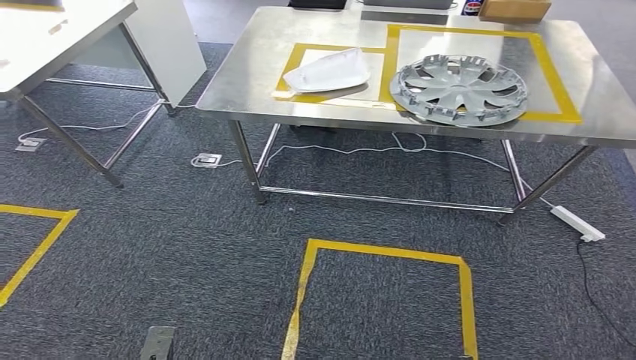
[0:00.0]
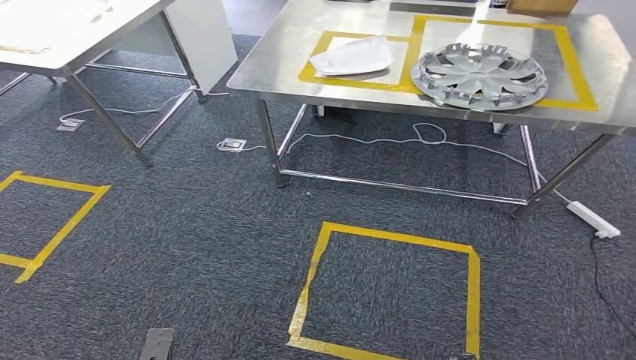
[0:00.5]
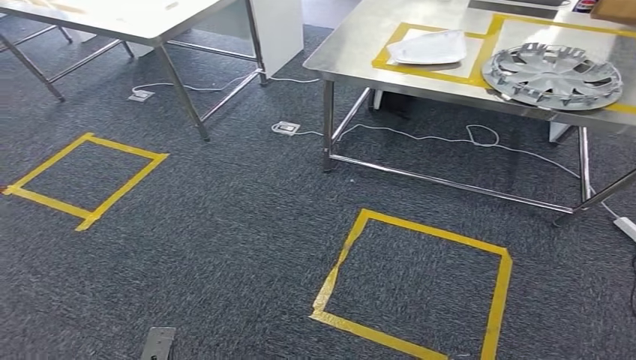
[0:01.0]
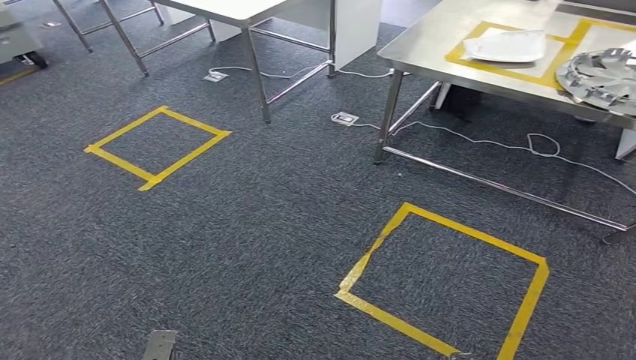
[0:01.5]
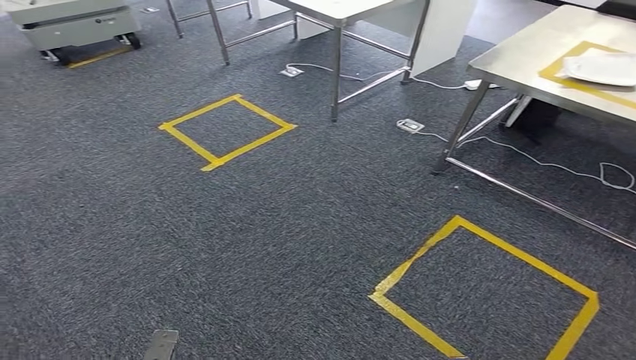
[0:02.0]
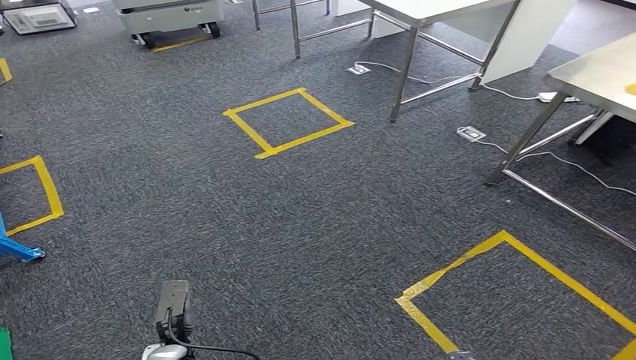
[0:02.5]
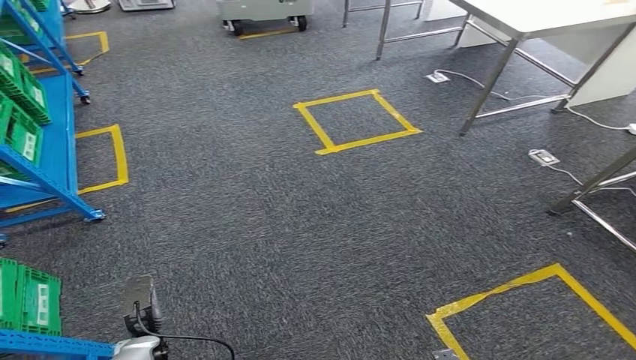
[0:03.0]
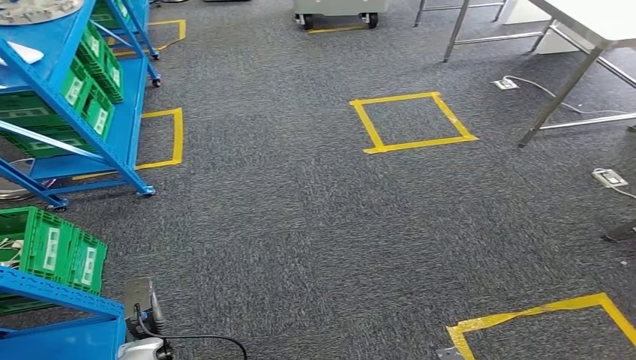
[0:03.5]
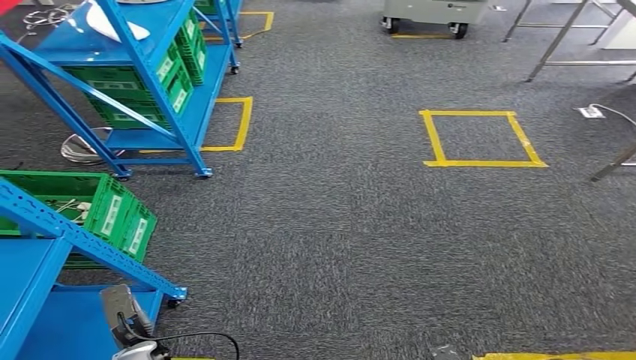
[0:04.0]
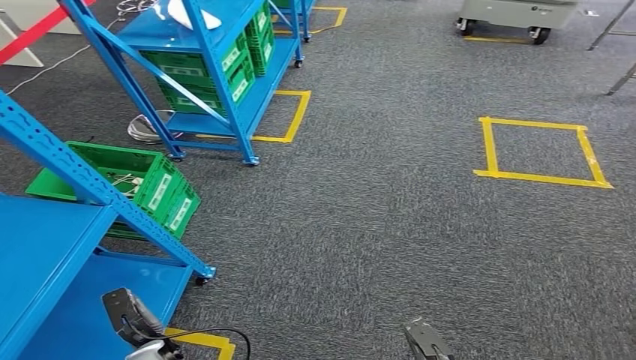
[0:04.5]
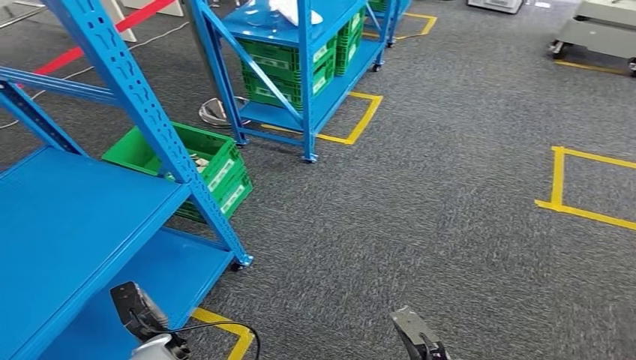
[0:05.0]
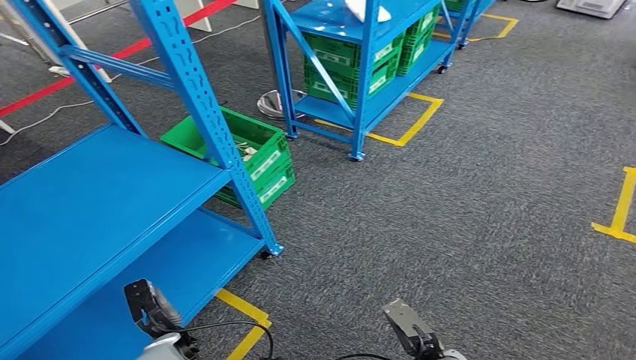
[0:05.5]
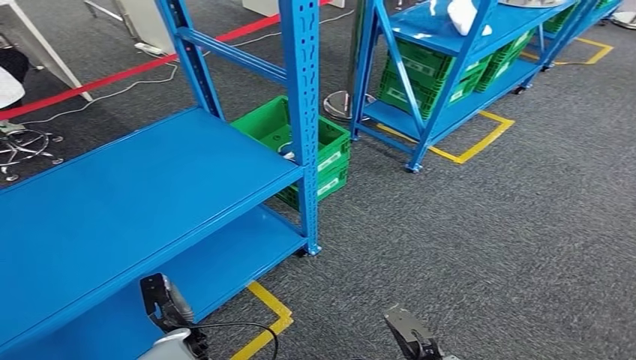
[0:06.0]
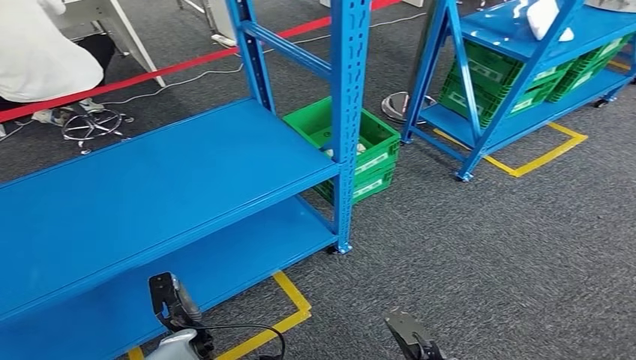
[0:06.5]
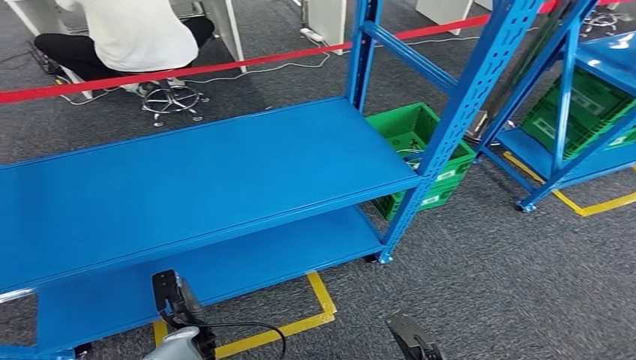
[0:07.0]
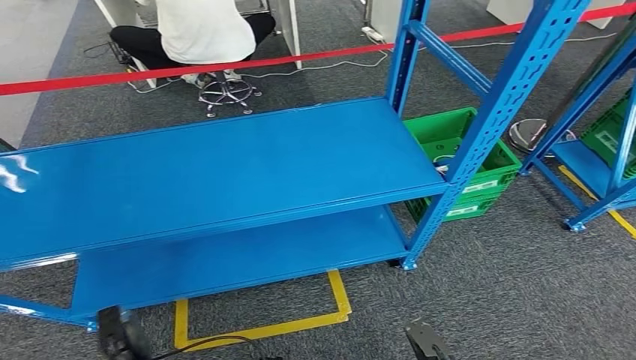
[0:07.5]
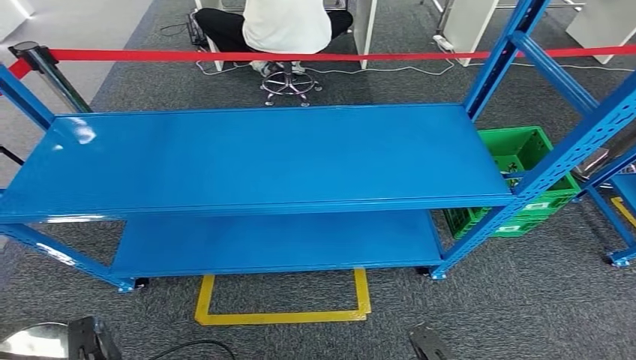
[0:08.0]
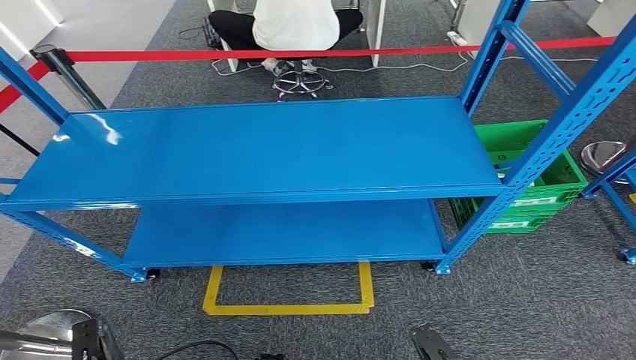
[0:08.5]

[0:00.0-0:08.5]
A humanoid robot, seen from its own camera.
Step, 0:00.0 to 0:08.5: Return to the initial position at the workbench.
